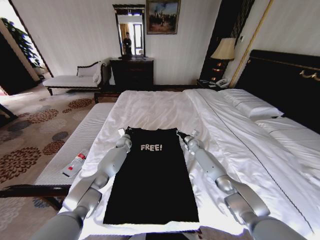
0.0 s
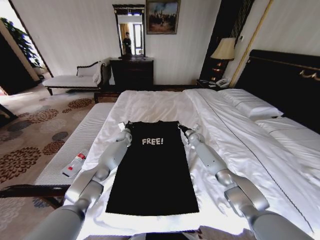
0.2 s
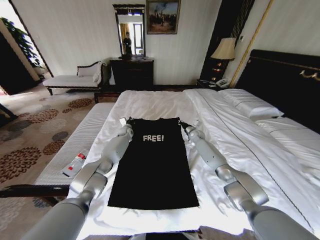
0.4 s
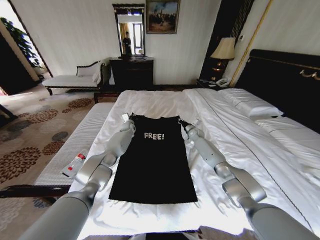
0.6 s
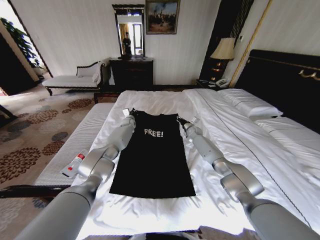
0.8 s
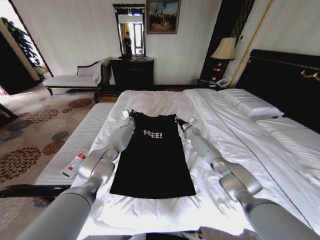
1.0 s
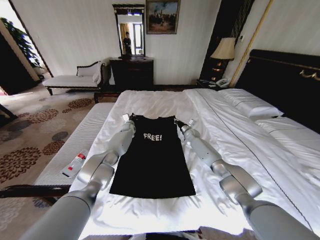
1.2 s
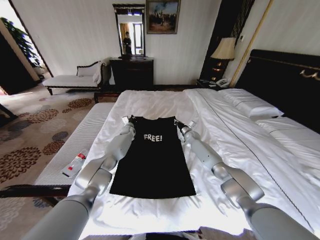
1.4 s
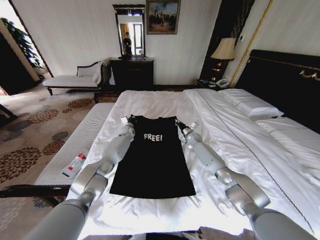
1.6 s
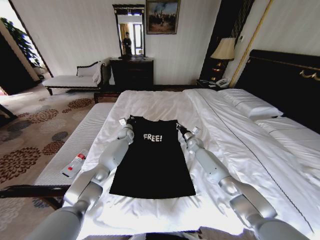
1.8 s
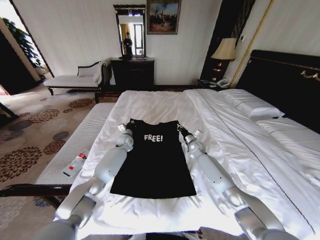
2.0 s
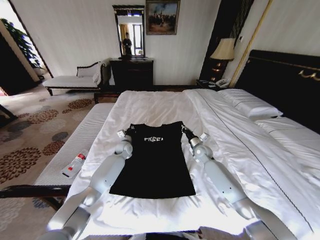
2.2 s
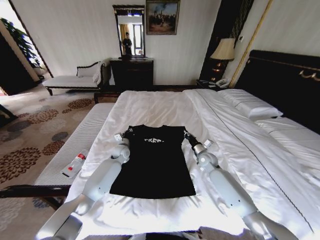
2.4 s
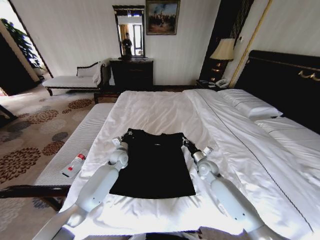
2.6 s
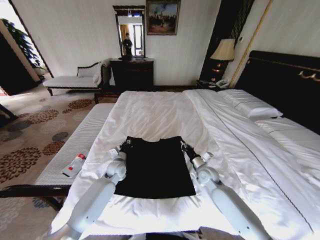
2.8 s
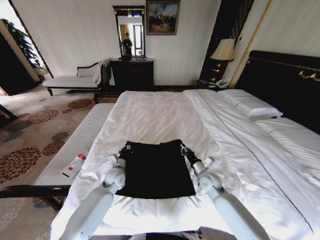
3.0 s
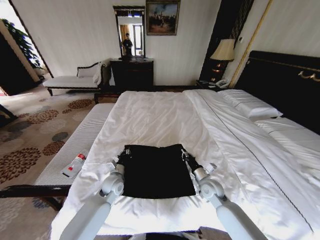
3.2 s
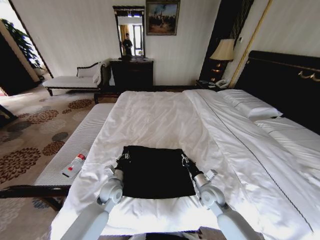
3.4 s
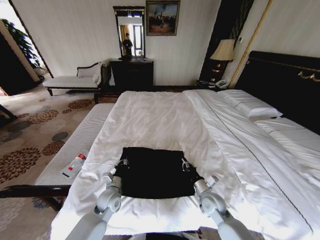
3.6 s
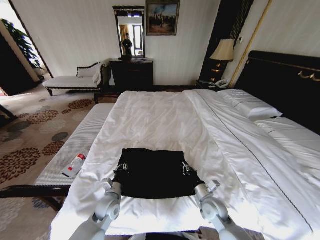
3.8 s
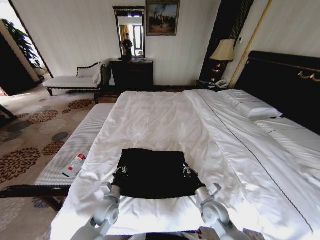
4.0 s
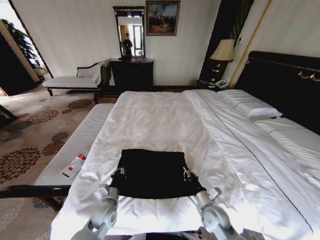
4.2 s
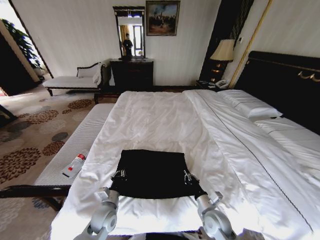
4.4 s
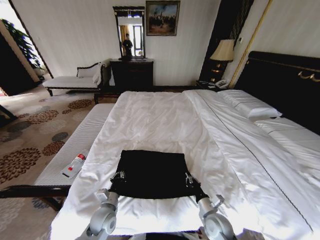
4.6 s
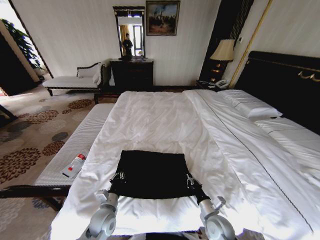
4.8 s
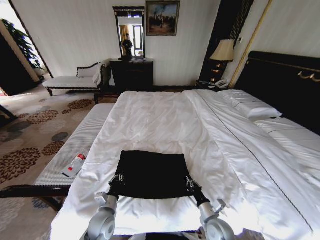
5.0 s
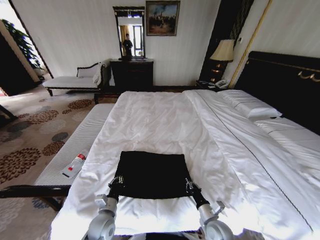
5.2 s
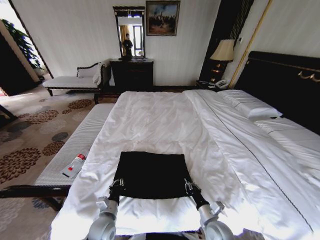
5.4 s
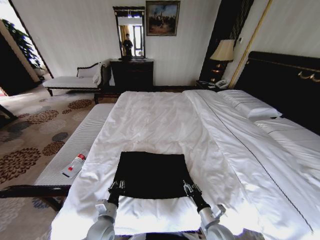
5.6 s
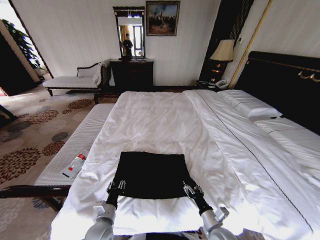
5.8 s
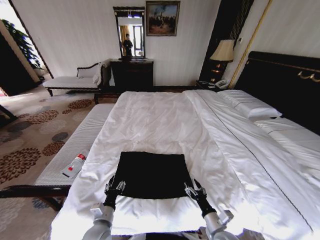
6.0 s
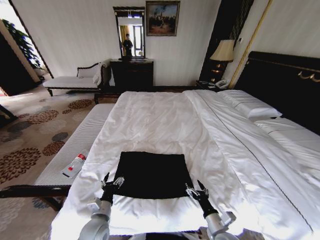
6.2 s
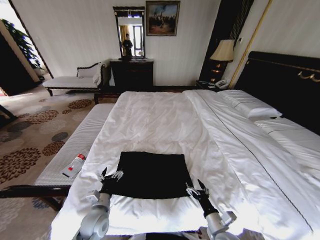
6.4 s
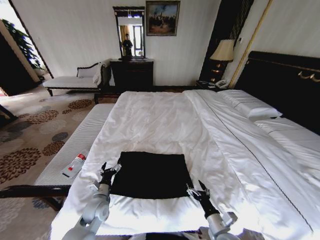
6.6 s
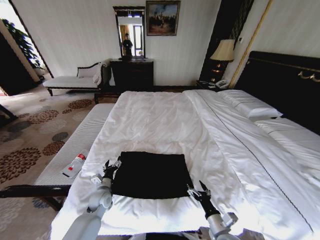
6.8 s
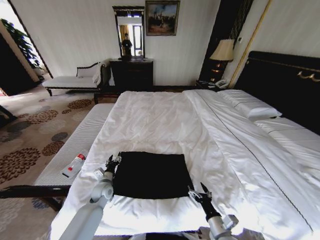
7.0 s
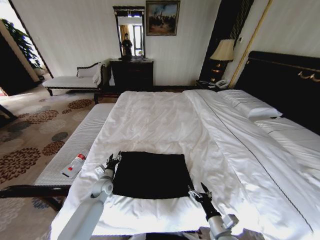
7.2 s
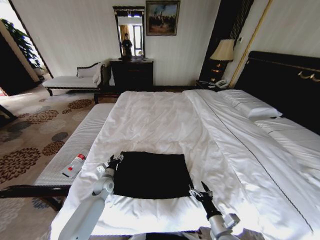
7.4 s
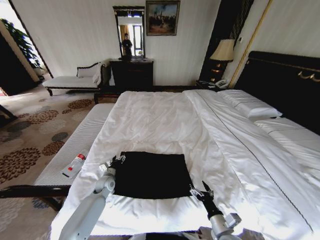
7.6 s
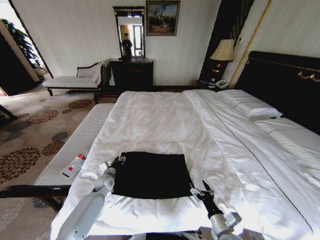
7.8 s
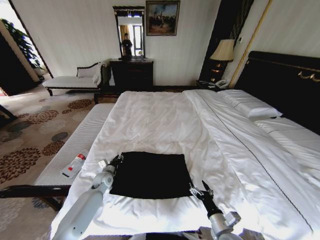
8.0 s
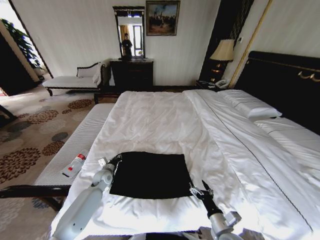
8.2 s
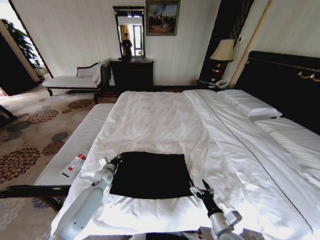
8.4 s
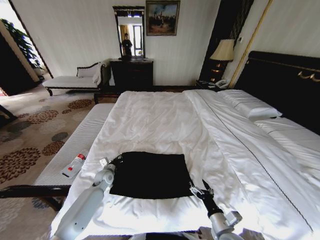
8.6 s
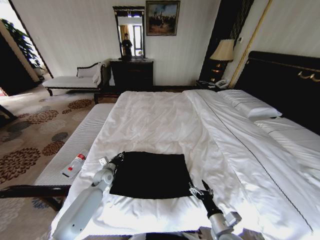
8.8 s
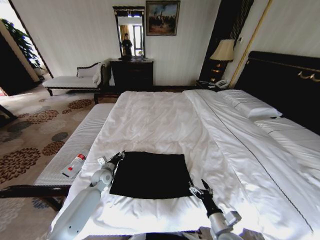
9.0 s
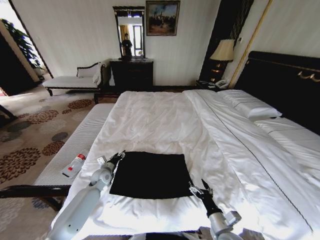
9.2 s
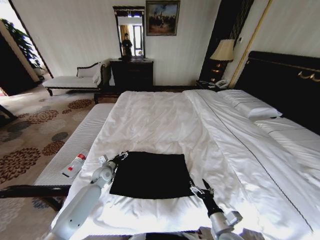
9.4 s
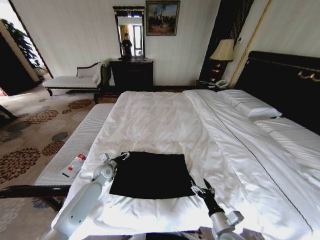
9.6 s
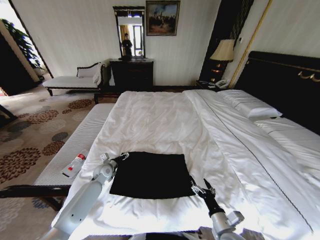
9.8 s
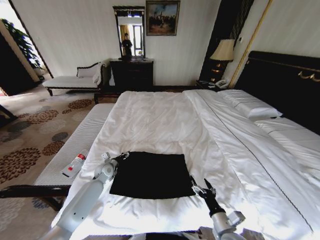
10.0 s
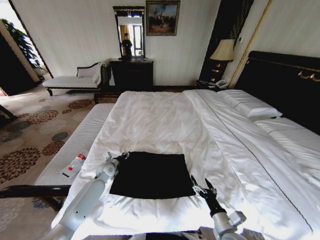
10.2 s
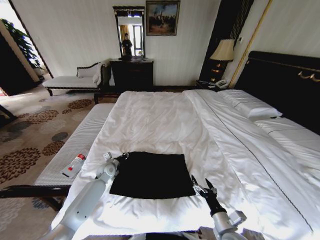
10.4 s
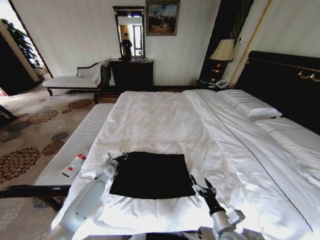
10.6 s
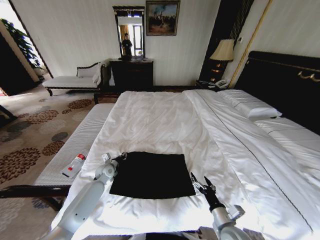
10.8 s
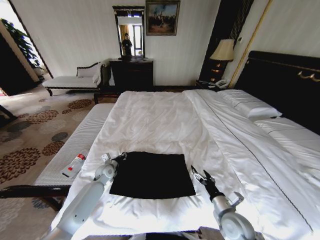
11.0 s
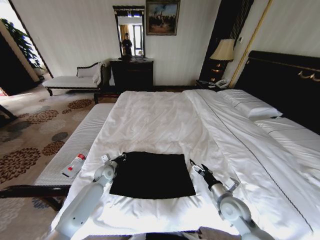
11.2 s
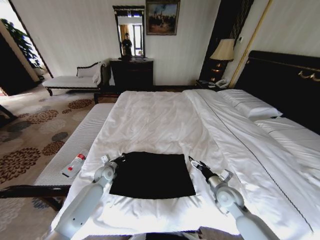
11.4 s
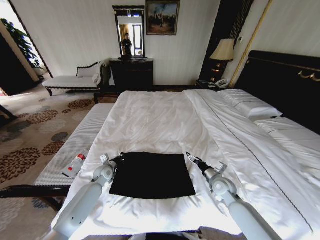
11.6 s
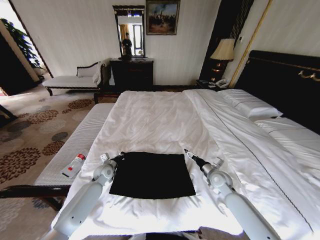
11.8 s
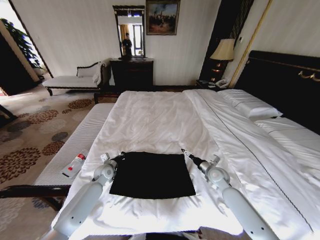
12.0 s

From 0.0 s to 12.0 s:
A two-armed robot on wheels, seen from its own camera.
Task of the whole recording: Fold the clothes on the bed.
From 0.0 s to 1.6 s: The left gripper heads upward, covering roughly 5 cm.
From 1.6 s to 3.0 s: The grippers both shift backward by some 25 cm.
From 3.0 s to 4.4 s: Both grippers travel together backward, approximately 15 cm.
From 4.4 s to 6.0 s: The grippers both shift backward by approximately 5 cm. The right gripper opens its fingers, while the left gripper opens.
From 6.0 s to 7.6 s: The left gripper is displaced forward by about 20 cm.
From 7.6 s to 9.0 s: The left gripper closes, then reopens.
From 9.0 s to 10.4 s: The left gripper opens, then closes once more.
From 10.4 s to 12.0 s: The left gripper closes up. Meanwhile the right gripper heads forward, covering some 25 cm.

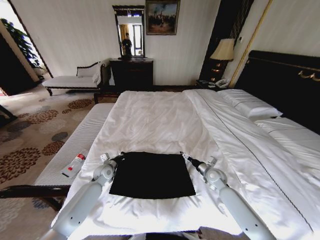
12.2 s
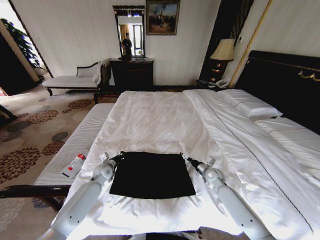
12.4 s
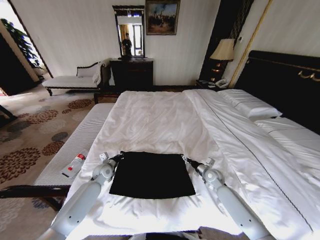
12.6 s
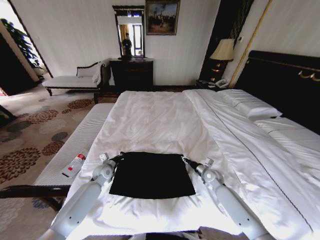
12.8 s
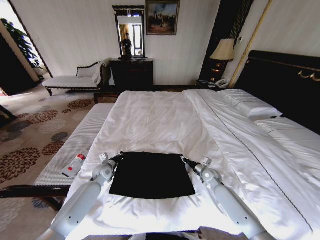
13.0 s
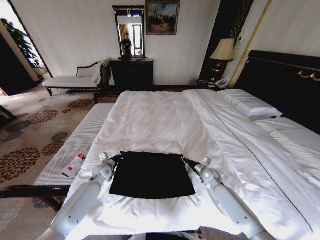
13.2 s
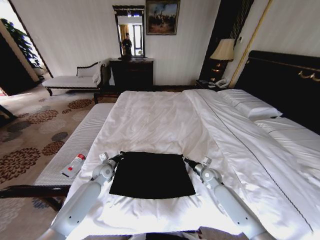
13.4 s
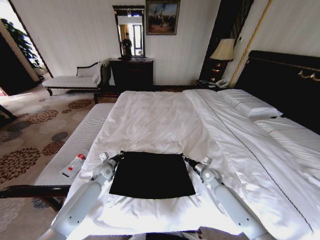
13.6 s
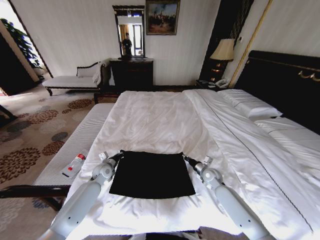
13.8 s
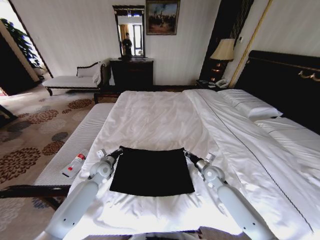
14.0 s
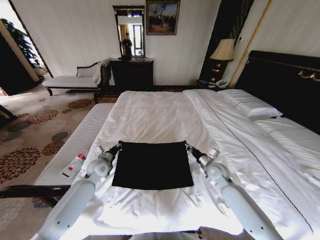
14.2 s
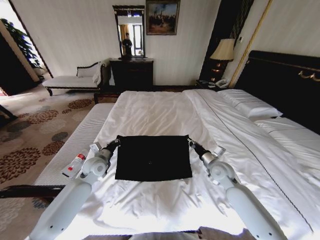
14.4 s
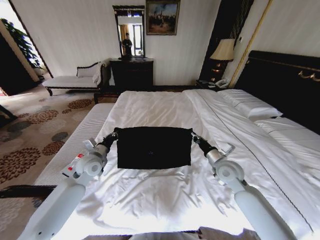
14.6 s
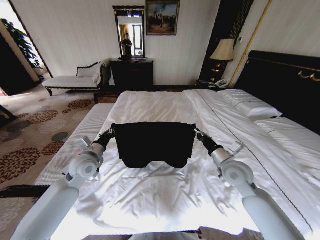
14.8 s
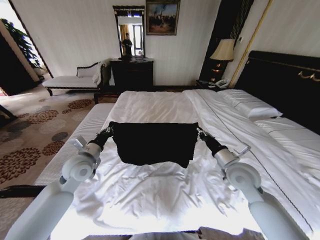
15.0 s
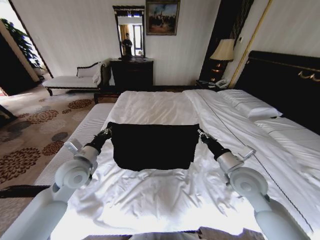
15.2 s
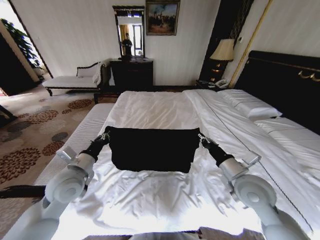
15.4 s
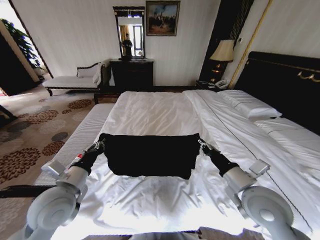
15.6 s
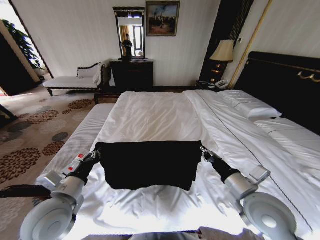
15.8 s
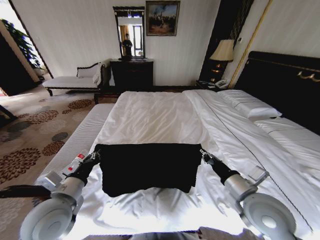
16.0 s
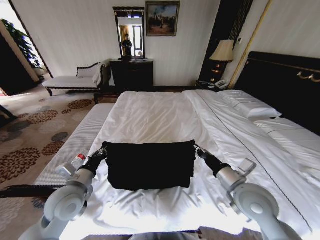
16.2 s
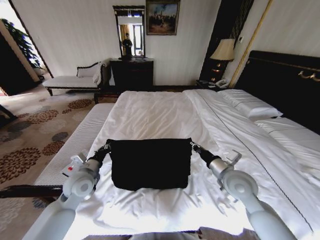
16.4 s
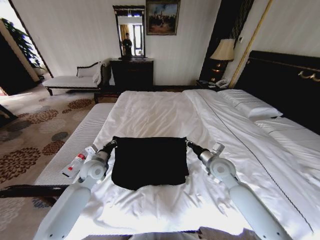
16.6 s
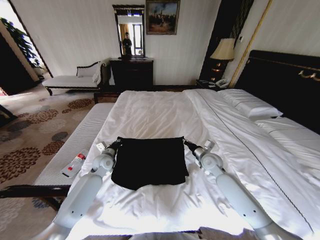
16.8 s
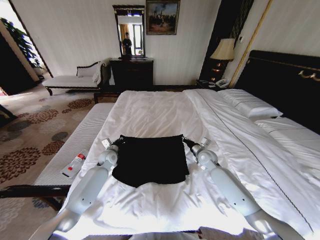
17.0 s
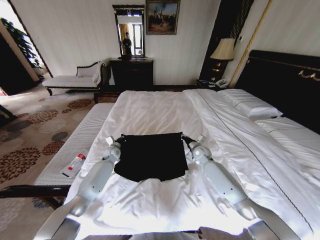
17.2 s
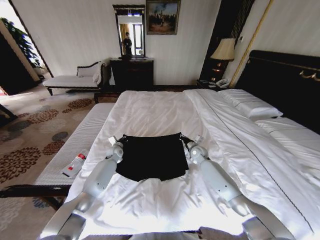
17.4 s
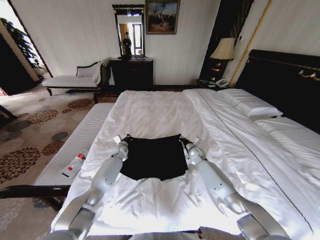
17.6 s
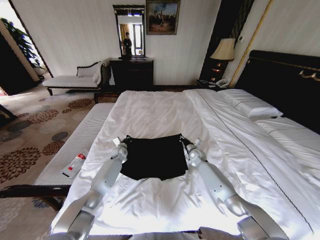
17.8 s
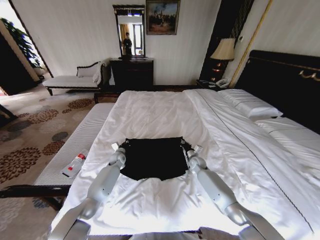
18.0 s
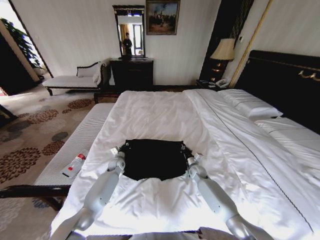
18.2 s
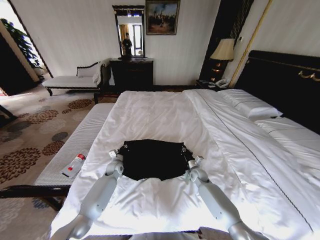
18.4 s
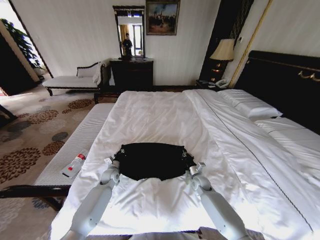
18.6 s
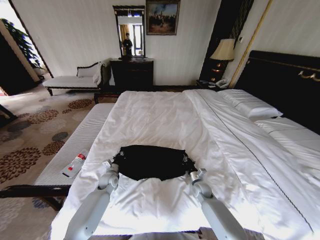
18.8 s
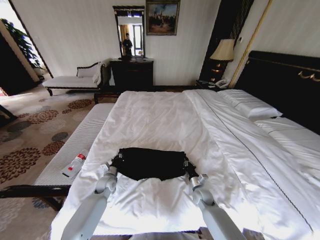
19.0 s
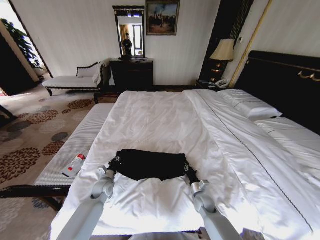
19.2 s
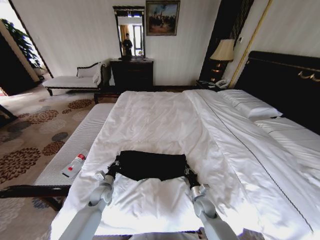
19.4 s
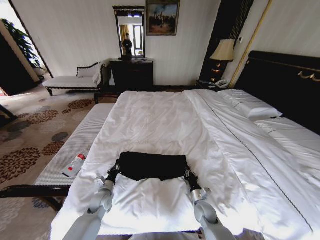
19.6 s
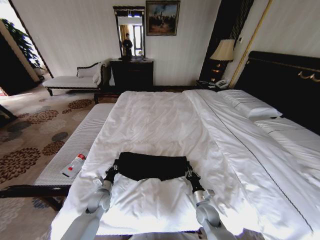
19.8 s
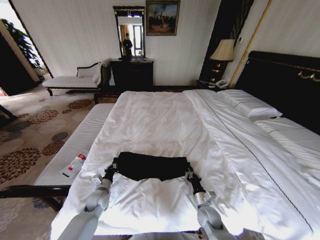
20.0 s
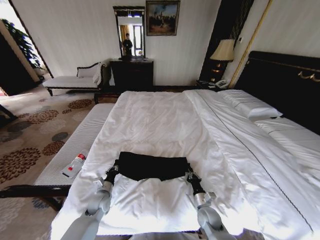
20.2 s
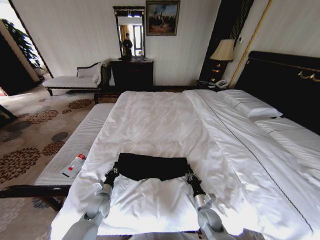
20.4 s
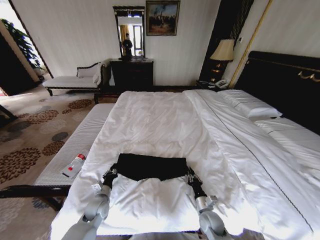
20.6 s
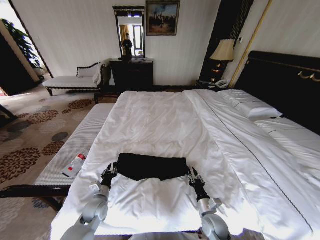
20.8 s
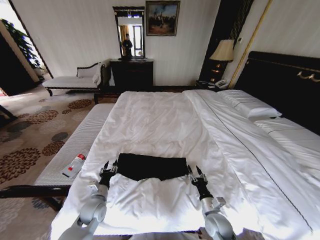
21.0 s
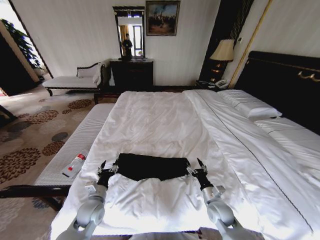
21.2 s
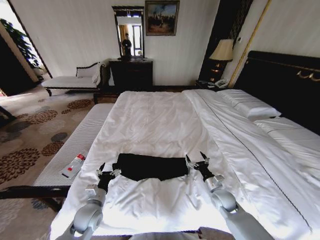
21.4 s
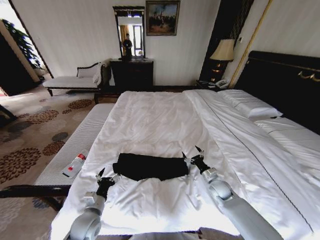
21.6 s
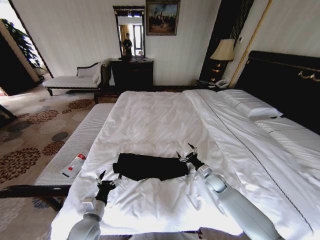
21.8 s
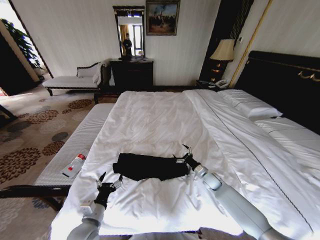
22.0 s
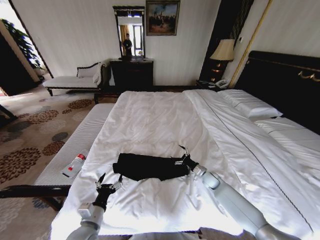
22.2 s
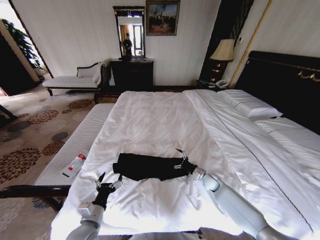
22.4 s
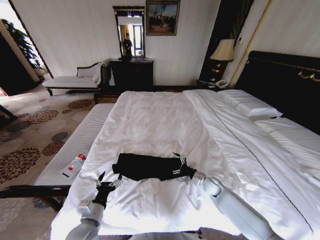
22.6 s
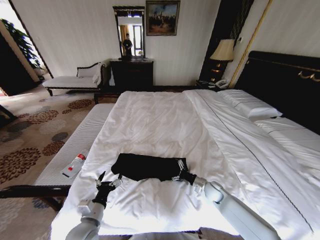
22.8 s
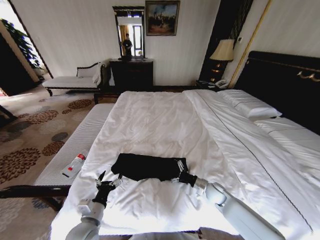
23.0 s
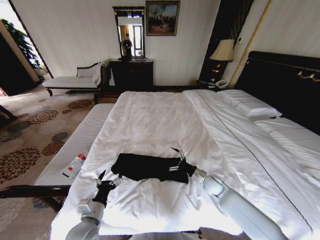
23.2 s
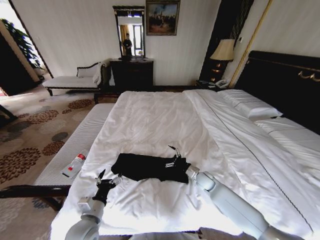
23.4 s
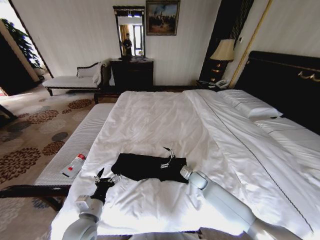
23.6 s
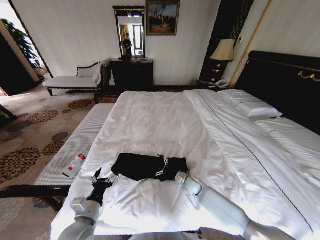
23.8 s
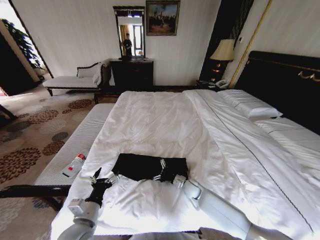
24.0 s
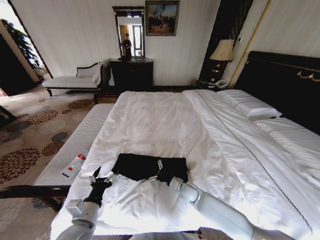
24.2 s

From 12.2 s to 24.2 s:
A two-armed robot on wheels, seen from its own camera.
Task of the whole recording: Fold the clothes on the bed.
From 12.2 s to 13.8 s: The right gripper closes its fingers.
From 13.8 s to 15.2 s: Both grippers move upward and backward, roughly 25 cm.
From 15.2 s to 16.6 s: The right gripper travels forward and downward by about 10 cm; the left gripper goes roughly 10 cm downward, and goes backward and returns, roughly 10 cm each way.
From 16.6 s to 18.2 s: The two grippers go roughly 20 cm downward and forward.
From 18.2 s to 19.8 s: The grippers both shift backward by roughly 20 cm.
From 19.8 s to 21.2 s: The right gripper moves upward, roughly 5 cm, and opens up; the left gripper is displaced upward and backward by approximately 10 cm, and opens.
From 21.2 s to 22.6 s: The right gripper goes approximately 15 cm forward. Meanwhile the left gripper heads backward, covering approximately 10 cm.
From 22.6 s to 24.2 s: The right gripper goes some 15 cm to the left. Meanwhile the left gripper heads upward, covering approximately 5 cm.
